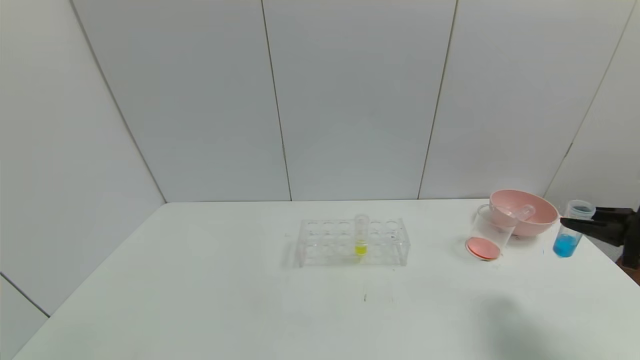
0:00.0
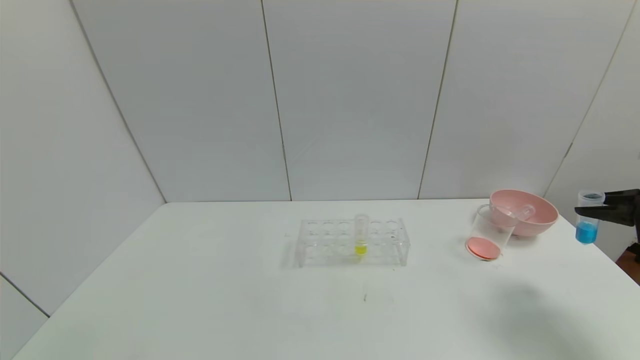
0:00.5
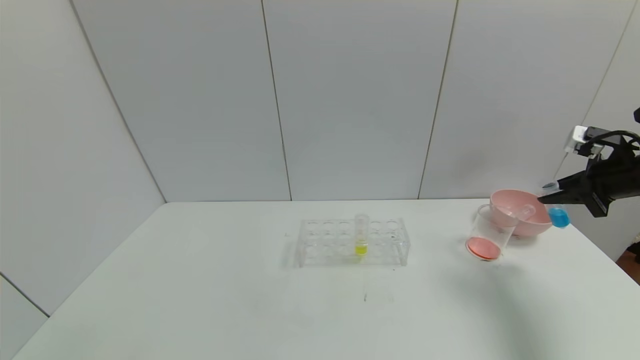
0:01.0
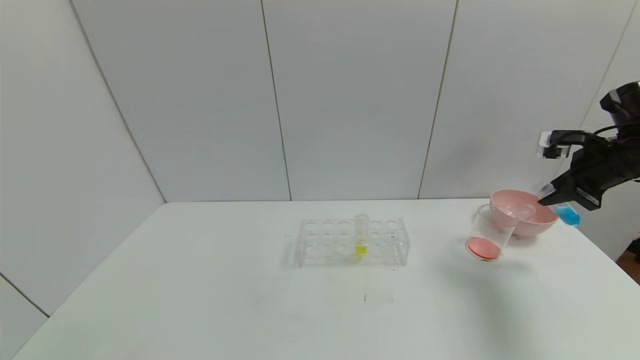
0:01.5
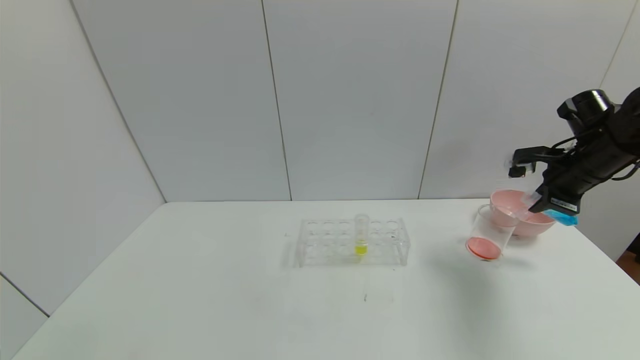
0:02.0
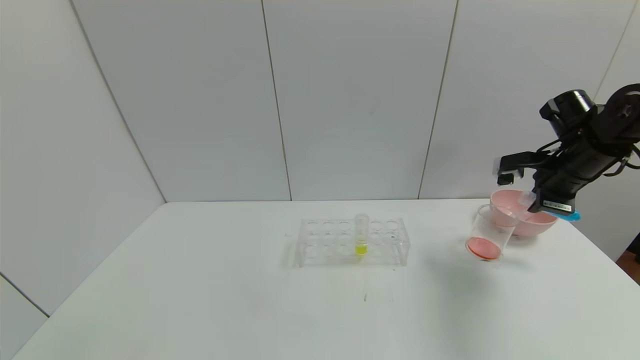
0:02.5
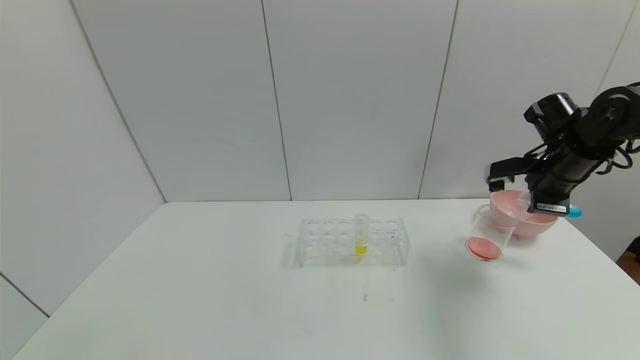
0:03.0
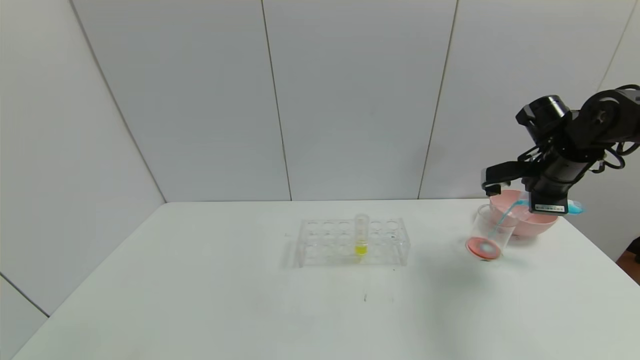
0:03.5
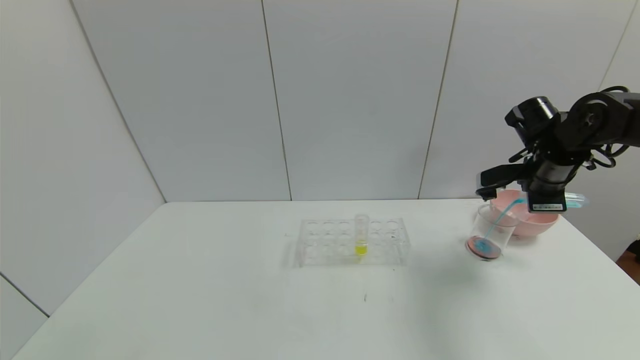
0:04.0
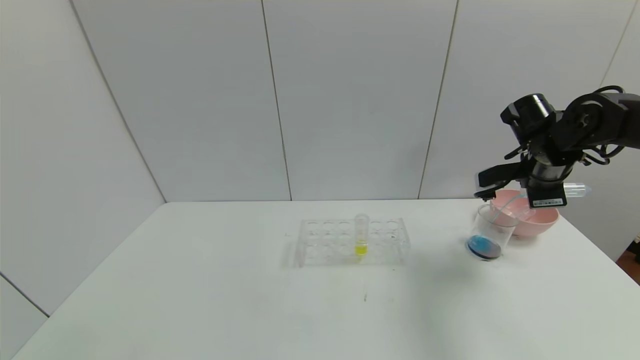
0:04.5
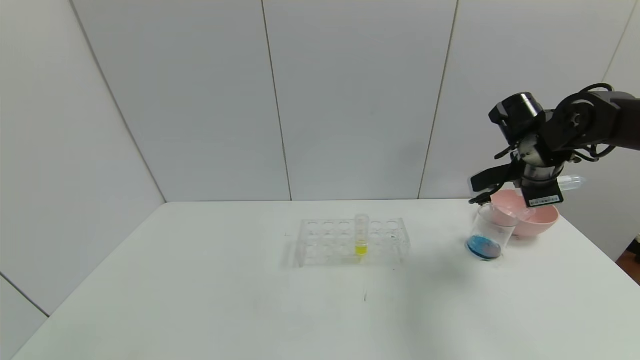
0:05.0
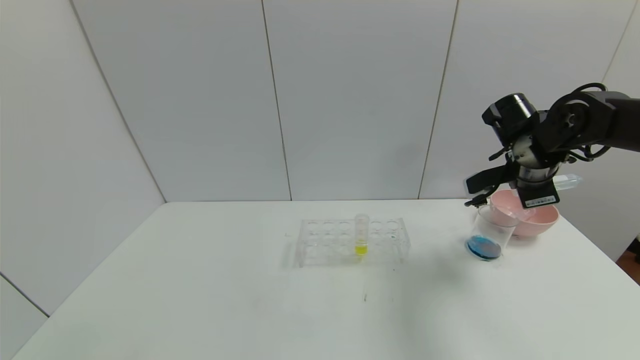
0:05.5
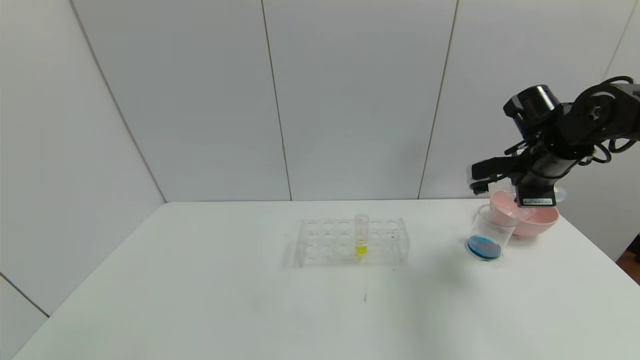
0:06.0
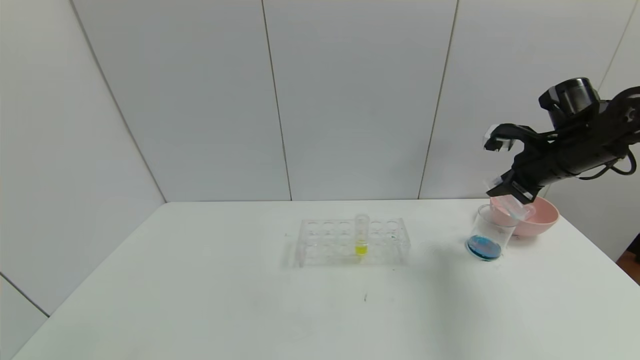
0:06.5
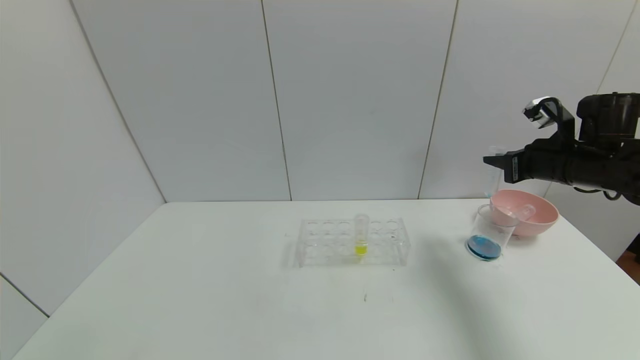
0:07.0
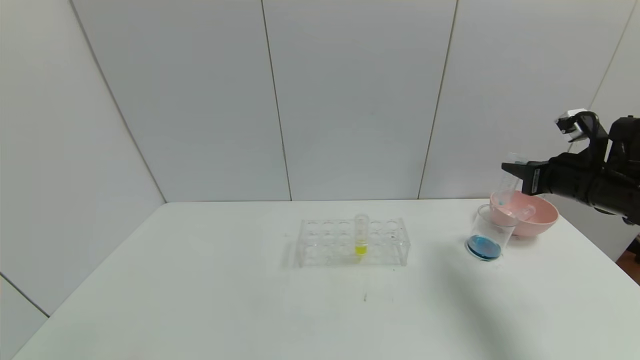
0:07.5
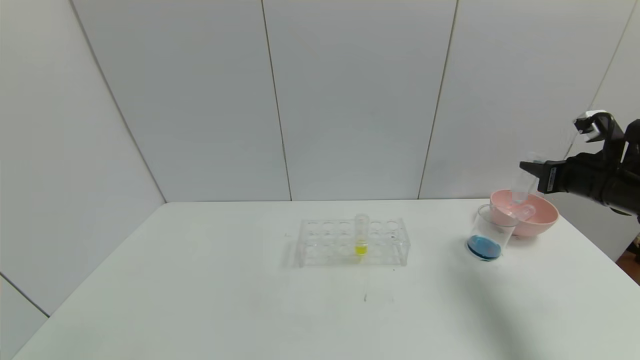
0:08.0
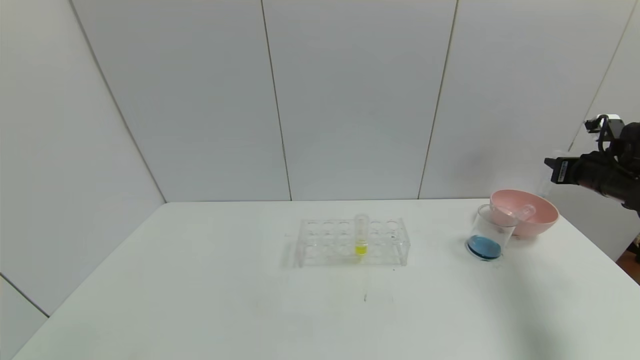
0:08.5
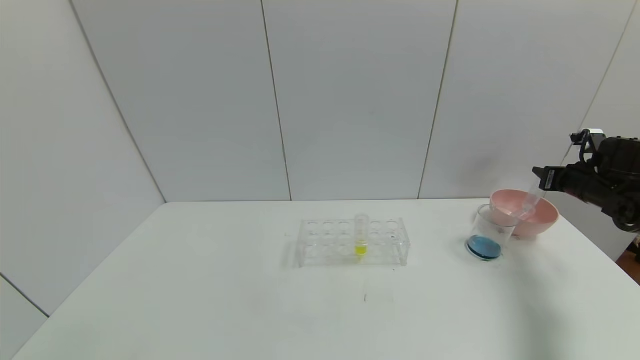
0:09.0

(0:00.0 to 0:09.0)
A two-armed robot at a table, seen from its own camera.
Task of the whole recording: pick up the test tube with red pigment and the test tube with blue pigment by grippers and pour them into the container.
Step, 0:00.0 - 0:07.0: Pour the blue reagent into the graduated cylinder with right gripper.
0:00.0 - 0:02.0: The right gripper is displaced forward by roughly 15 cm.
0:02.0 - 0:04.5: The right gripper travels to the left by approximately 5 cm.
0:07.0 - 0:09.0: The right gripper travels to the right and downward by roughly 15 cm.

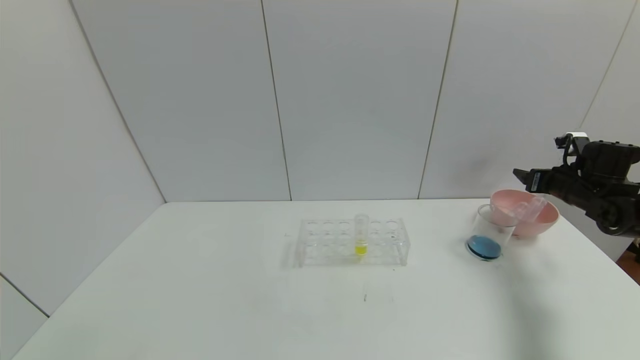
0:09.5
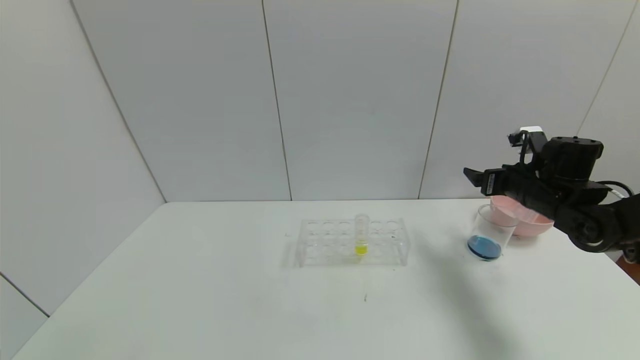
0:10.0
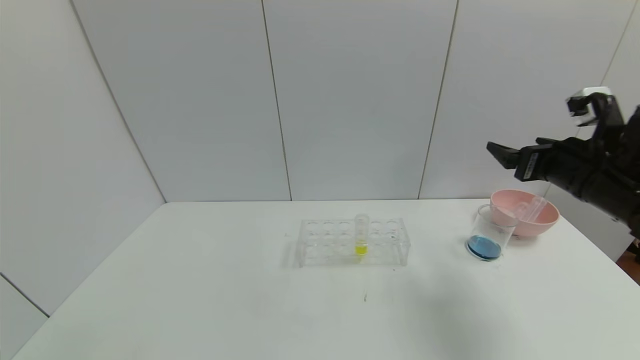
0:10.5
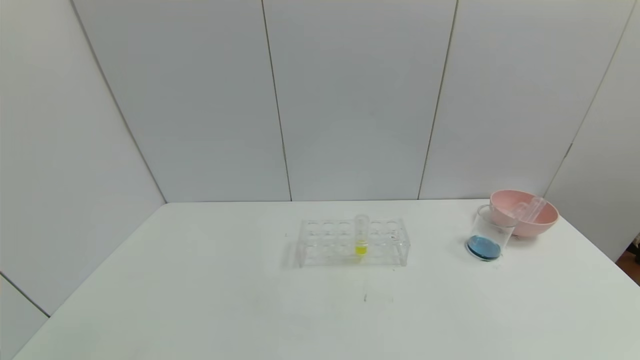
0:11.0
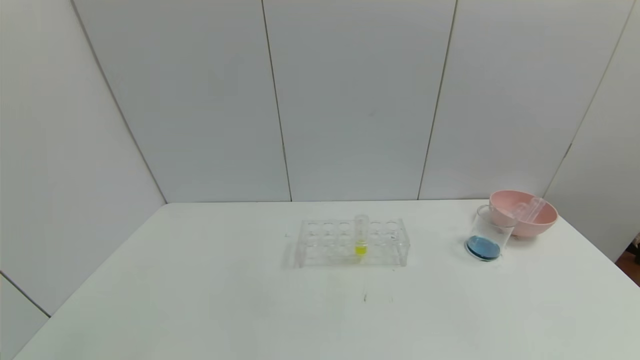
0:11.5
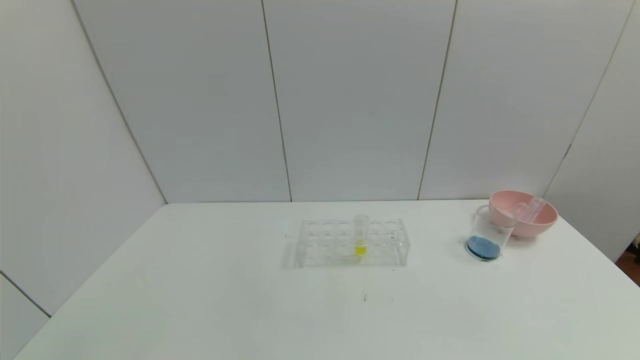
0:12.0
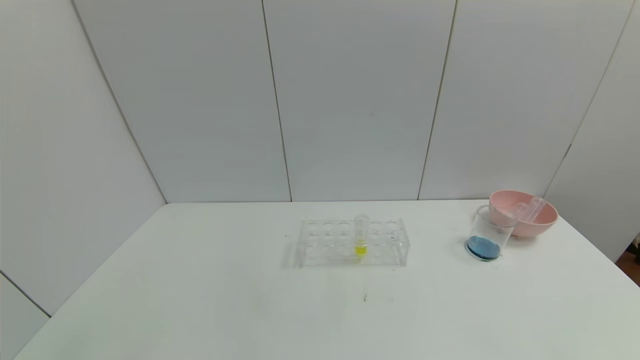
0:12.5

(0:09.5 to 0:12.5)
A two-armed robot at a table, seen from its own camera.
Task of the whole recording: pick up the test tube with red pigment and the test tube with blue pigment by grippers and pour them into the container.
0:09.5 - 0:11.0: The right gripper heads backward and upward, covering approximately 35 cm.
